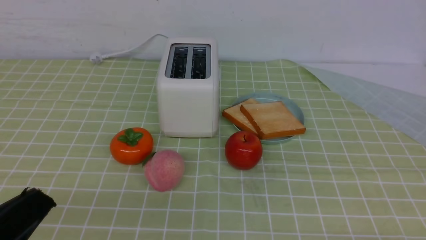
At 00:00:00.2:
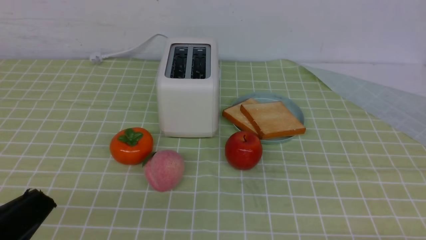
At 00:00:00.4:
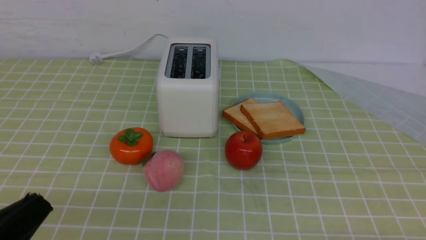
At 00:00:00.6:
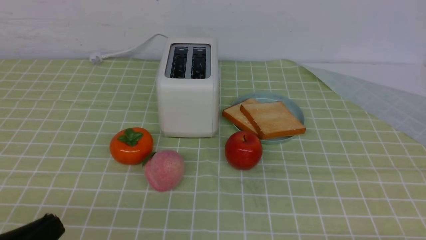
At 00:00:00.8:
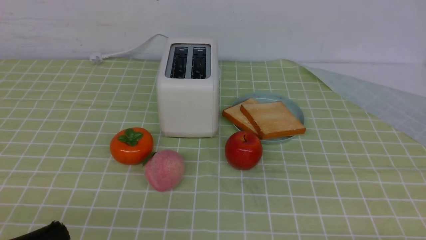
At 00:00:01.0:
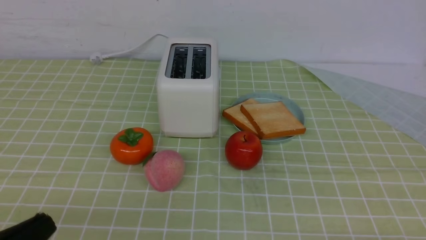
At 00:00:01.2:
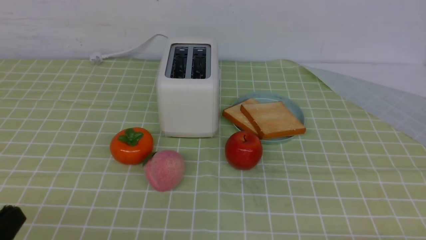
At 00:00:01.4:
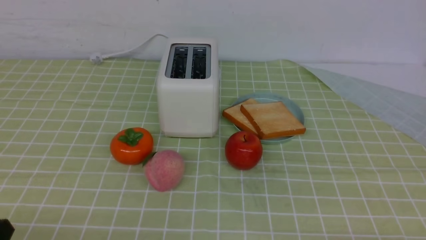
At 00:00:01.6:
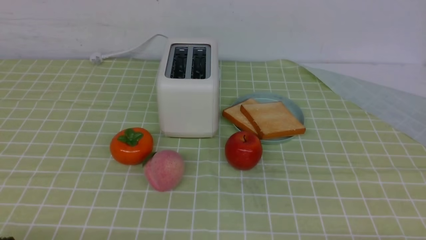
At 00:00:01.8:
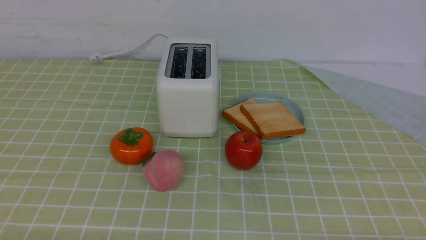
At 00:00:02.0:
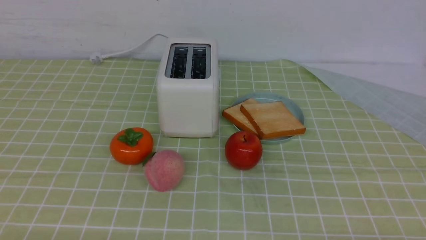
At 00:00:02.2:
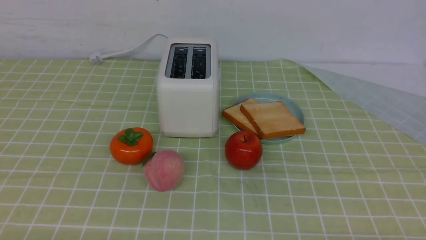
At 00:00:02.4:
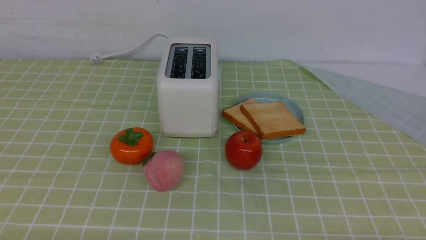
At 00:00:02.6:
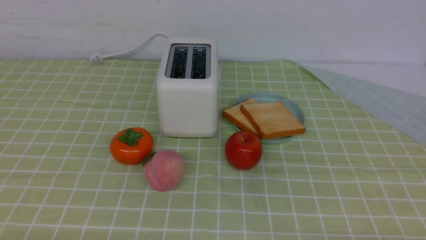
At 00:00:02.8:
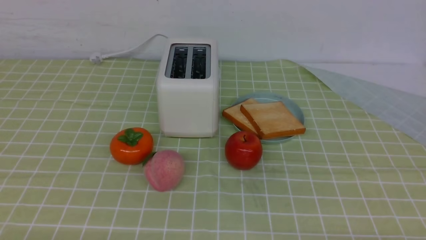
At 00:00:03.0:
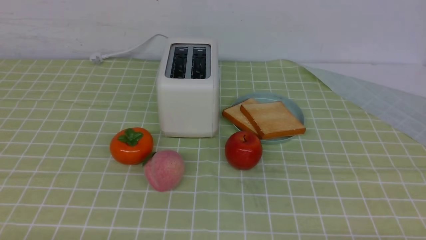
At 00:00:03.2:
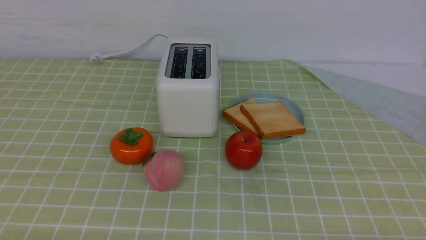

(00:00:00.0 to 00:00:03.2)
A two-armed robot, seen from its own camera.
Task of the whole recording: take toasted bread from bread machine on green coffee tablecloth place on plate.
00:00:00.0 - 00:00:01.6: The left gripper goes about 10 cm downward.
